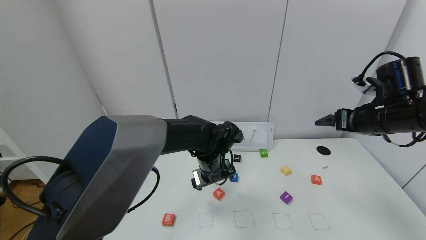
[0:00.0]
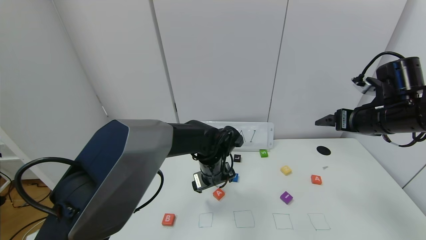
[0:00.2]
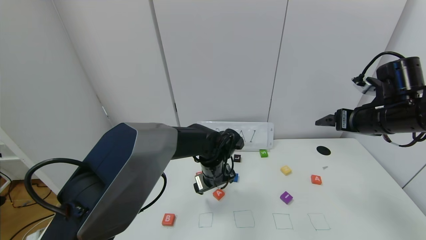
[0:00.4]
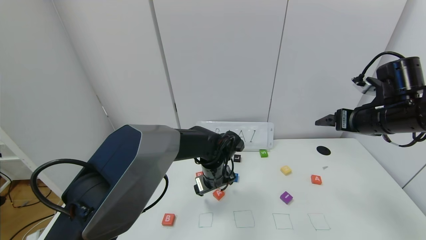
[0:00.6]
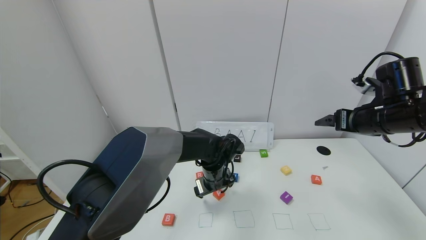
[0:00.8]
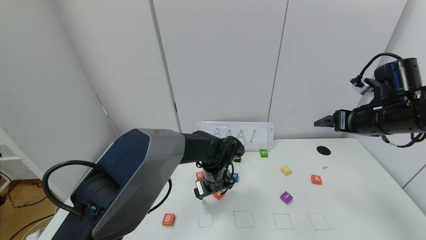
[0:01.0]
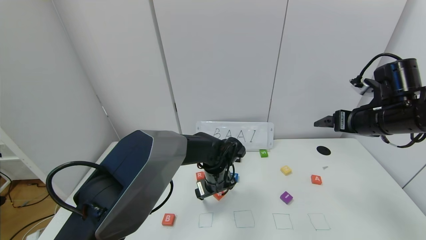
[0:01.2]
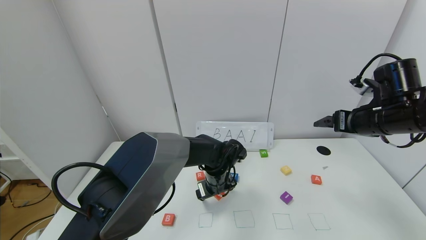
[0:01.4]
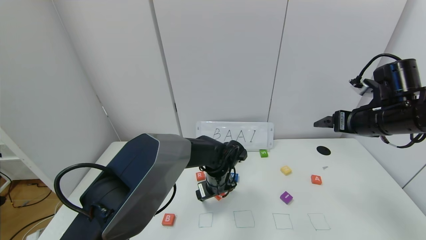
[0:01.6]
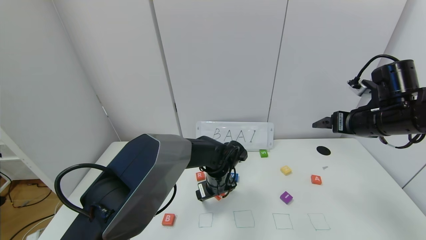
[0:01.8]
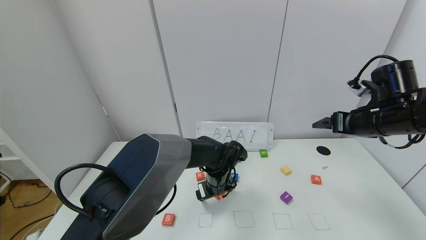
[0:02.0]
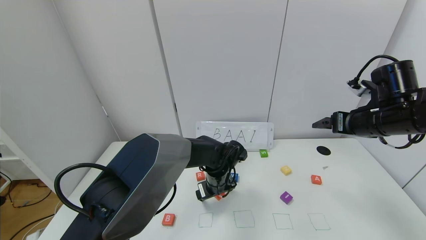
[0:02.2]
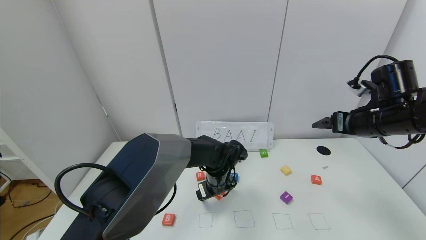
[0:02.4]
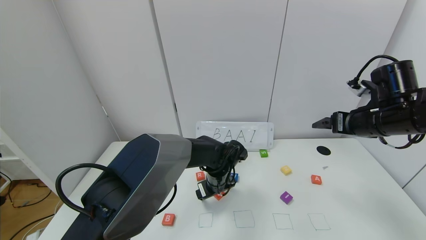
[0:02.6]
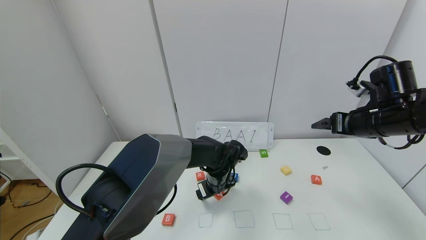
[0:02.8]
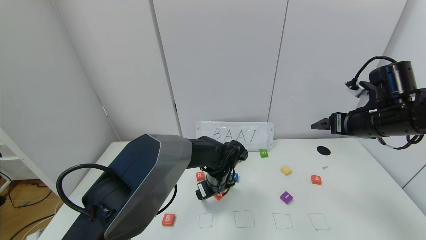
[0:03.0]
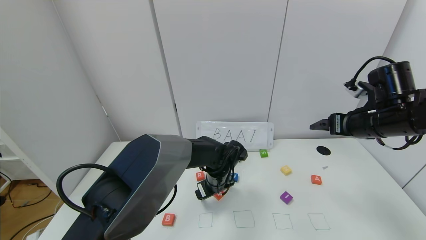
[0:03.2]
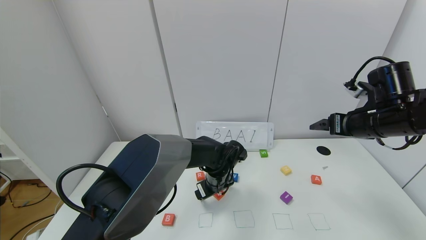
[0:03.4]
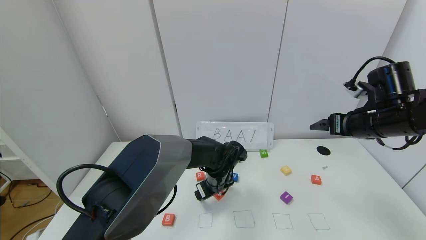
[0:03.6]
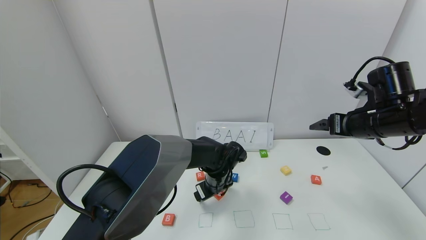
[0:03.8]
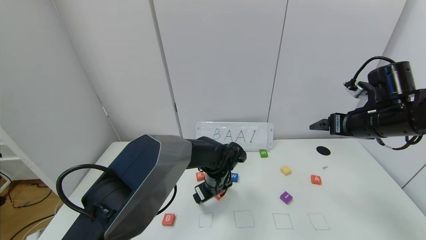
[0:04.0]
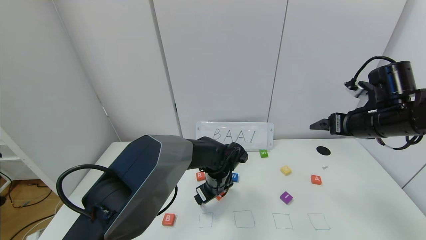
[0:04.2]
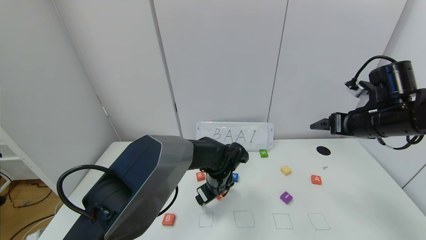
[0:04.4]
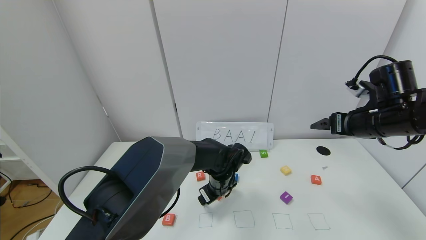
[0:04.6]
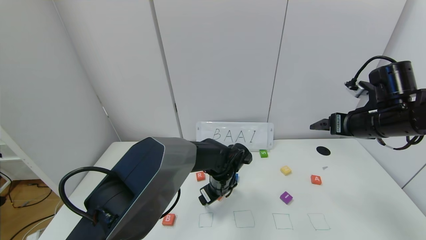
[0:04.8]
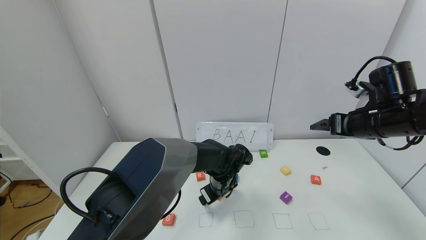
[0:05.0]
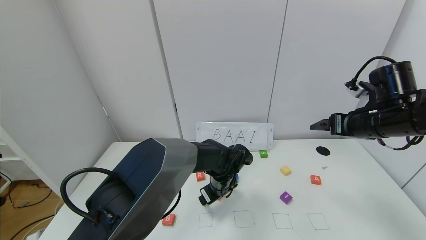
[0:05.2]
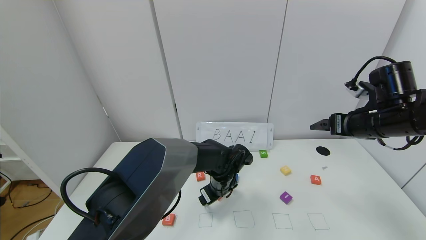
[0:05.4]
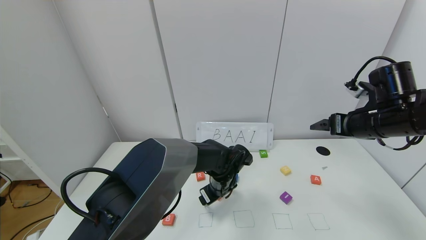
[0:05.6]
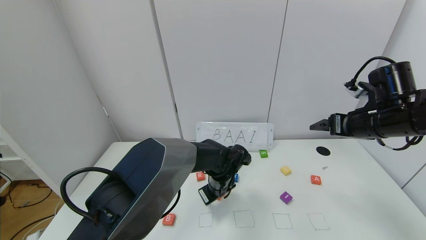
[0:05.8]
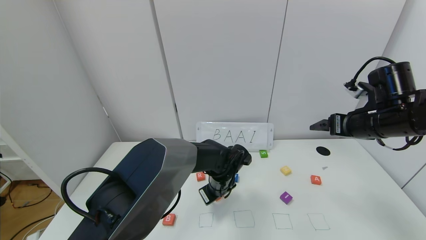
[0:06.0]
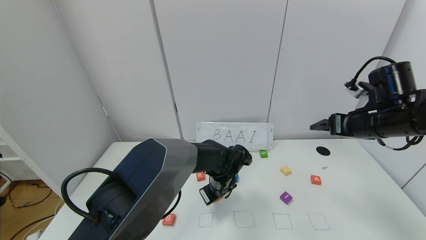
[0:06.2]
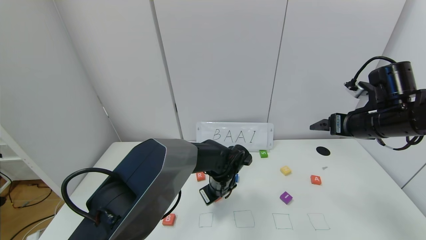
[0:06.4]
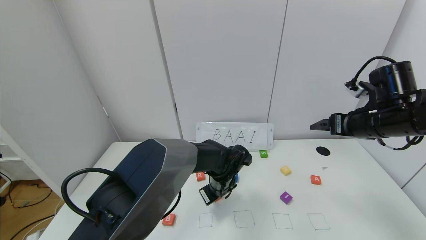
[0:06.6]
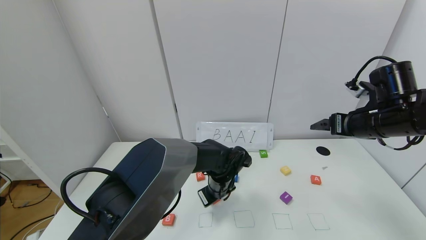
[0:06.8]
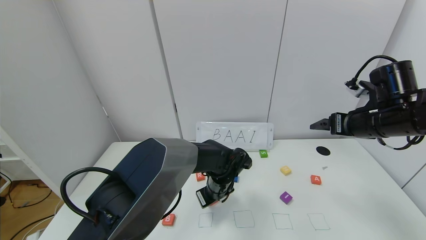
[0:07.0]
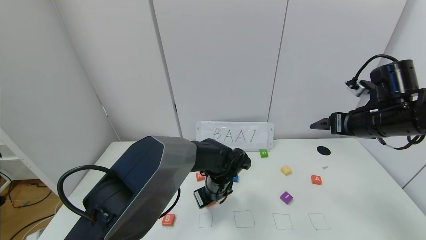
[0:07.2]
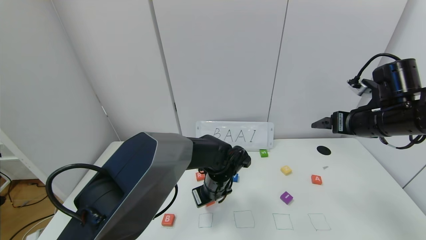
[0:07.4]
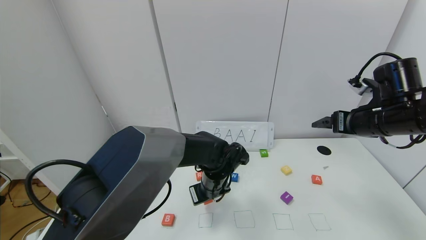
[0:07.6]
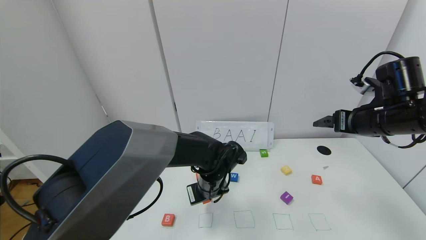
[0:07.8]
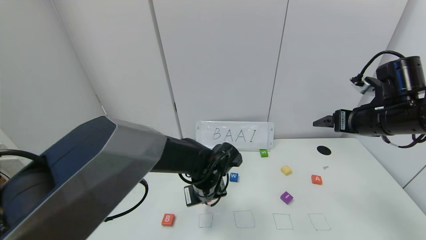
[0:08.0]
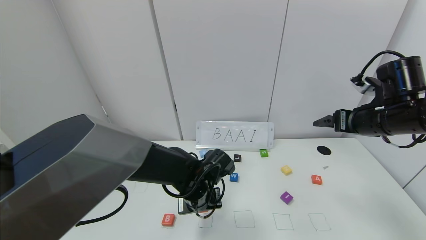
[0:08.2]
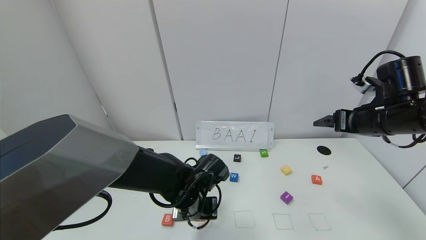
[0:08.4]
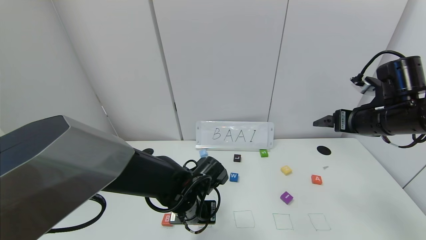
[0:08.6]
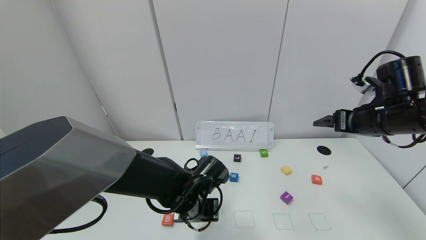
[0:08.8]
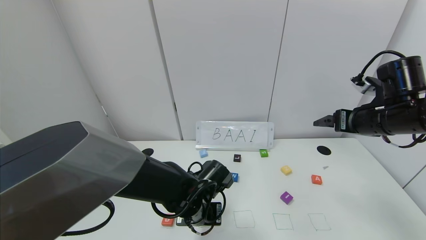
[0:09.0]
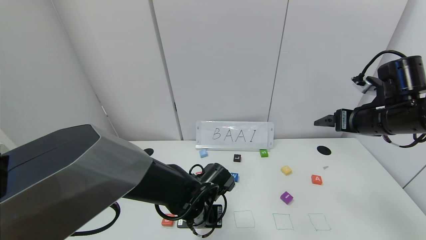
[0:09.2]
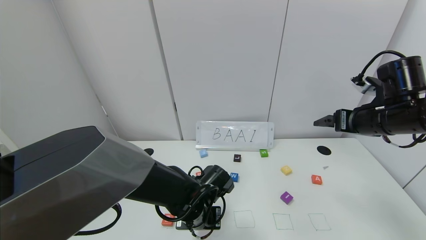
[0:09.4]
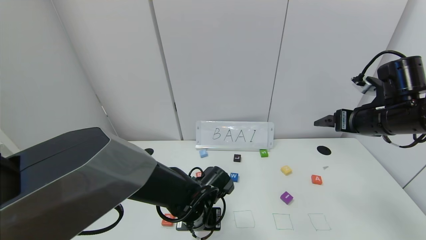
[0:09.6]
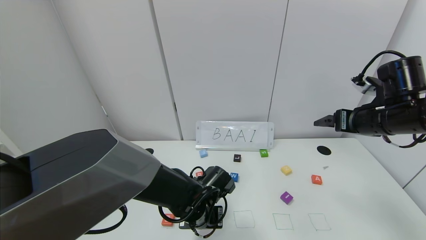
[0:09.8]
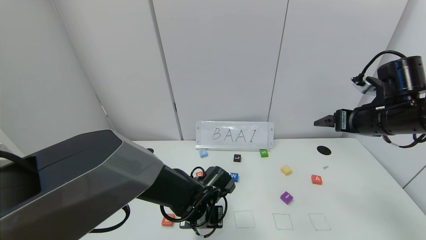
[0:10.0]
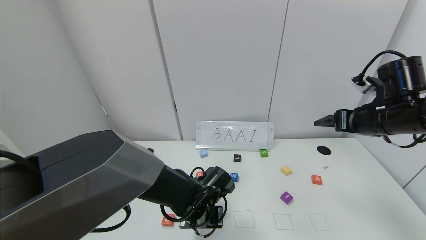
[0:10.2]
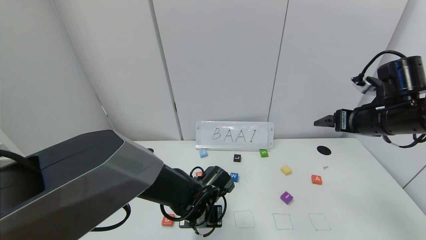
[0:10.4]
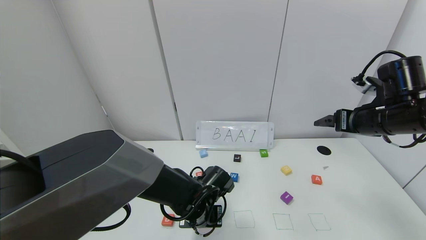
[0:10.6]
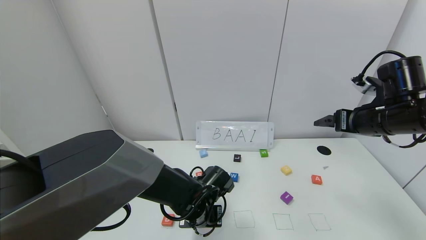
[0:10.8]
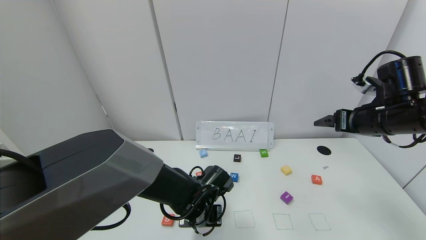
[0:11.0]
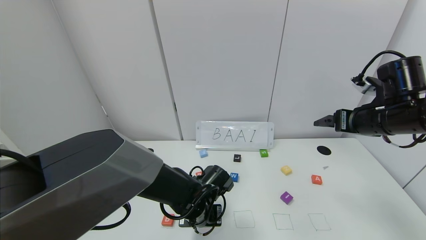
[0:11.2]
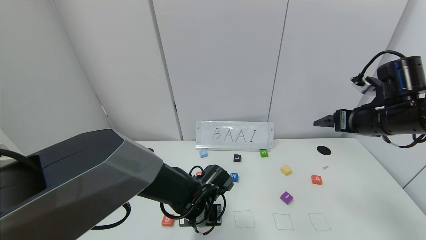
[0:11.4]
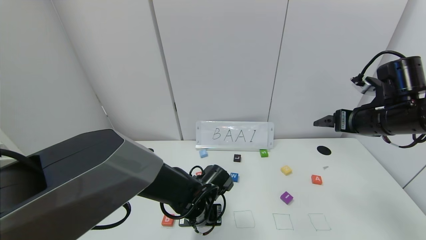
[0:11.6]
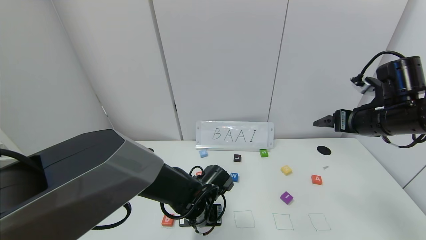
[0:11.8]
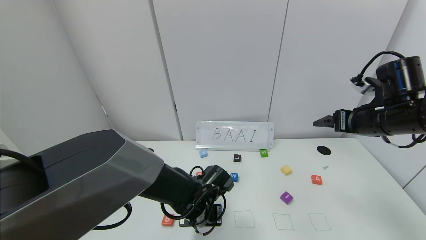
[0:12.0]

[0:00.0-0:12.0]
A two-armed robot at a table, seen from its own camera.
Task of the whole recording: use the gripper to find blocks with the letters b, a, a, and i on the table and arrange them into BAAI, then find r and N and turn the arranged baai into brian.
0:00.0 to 0:01.6: The left gripper moves downward, some 5 cm.
0:01.6 to 0:04.4: The grippers make only small movements.
0:04.4 to 0:06.0: The left gripper closes its fingers.
0:06.0 to 0:07.6: The left gripper changes place by approximately 5 cm.
0:07.6 to 0:09.0: The left gripper goes approximately 5 cm backward.
0:09.0 to 0:10.4: The grippers make only small movements.
0:10.4 to 0:12.0: The two grippers keep their place.

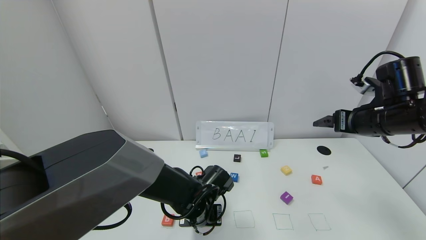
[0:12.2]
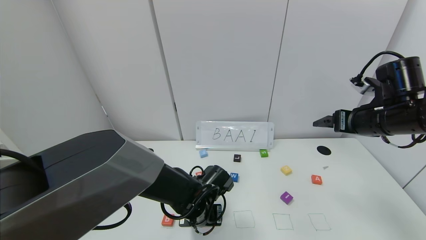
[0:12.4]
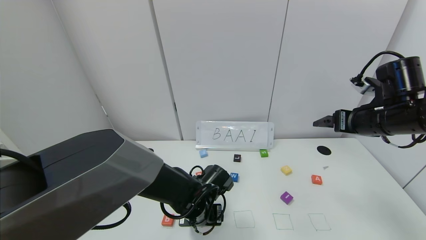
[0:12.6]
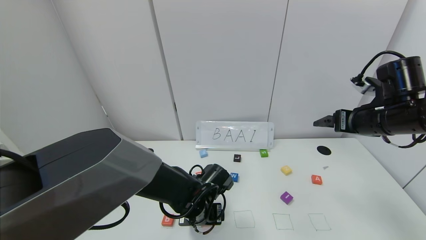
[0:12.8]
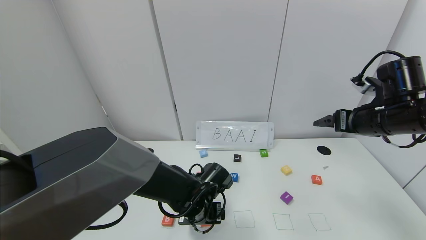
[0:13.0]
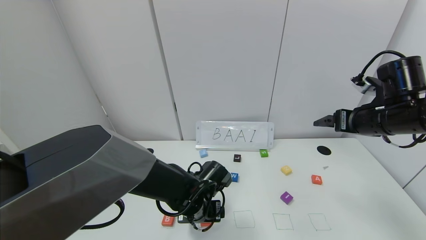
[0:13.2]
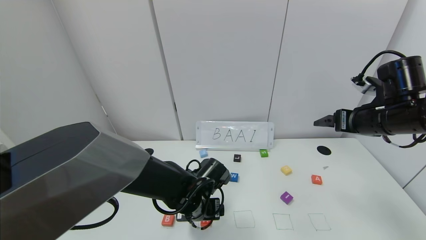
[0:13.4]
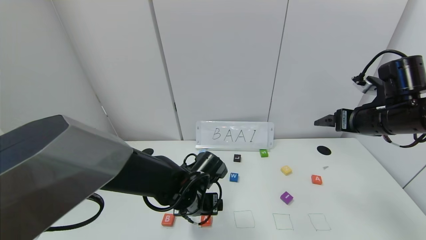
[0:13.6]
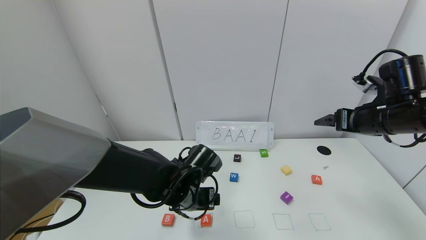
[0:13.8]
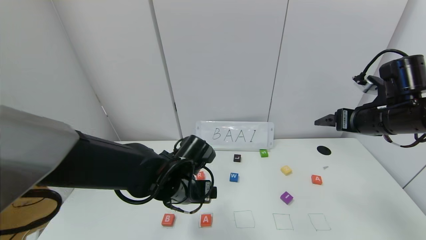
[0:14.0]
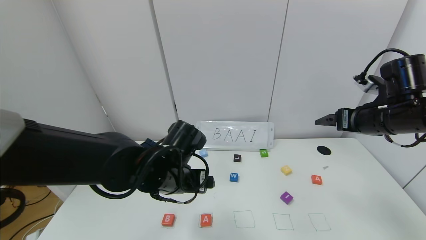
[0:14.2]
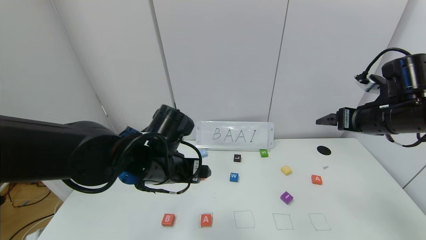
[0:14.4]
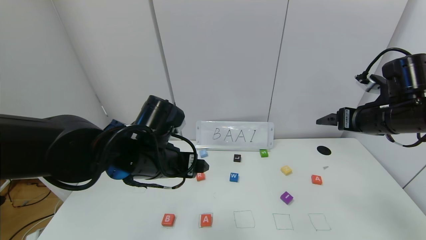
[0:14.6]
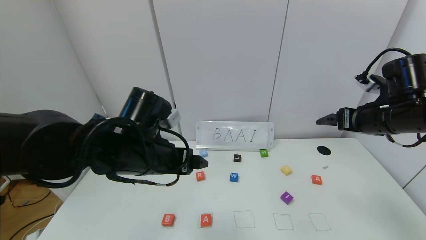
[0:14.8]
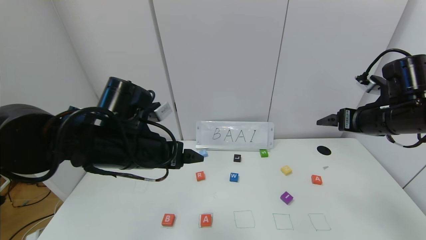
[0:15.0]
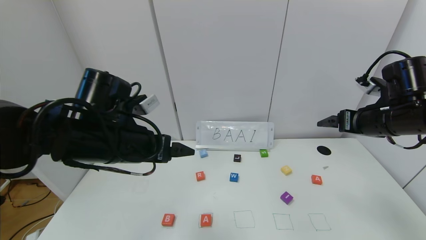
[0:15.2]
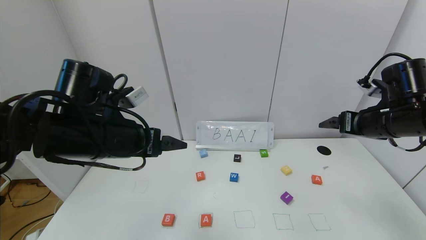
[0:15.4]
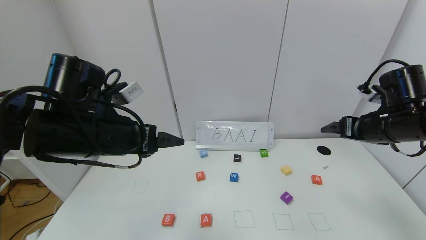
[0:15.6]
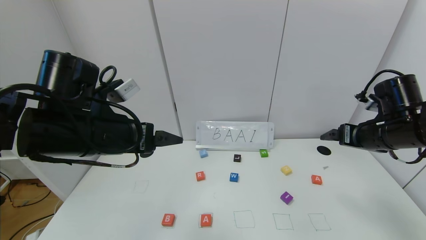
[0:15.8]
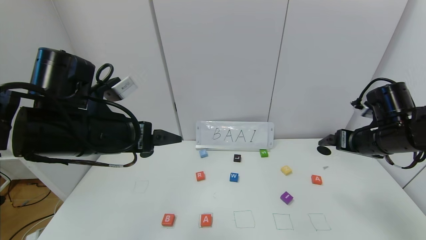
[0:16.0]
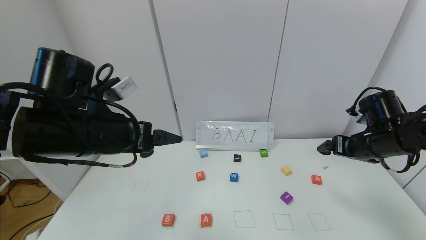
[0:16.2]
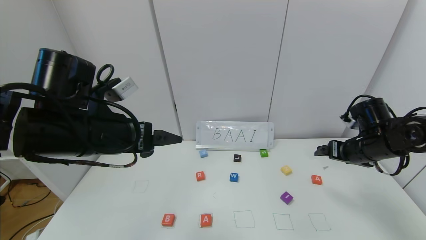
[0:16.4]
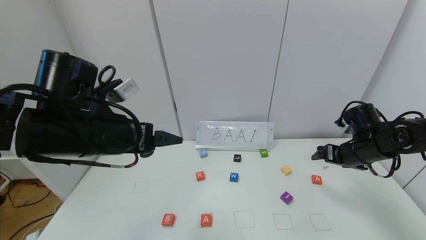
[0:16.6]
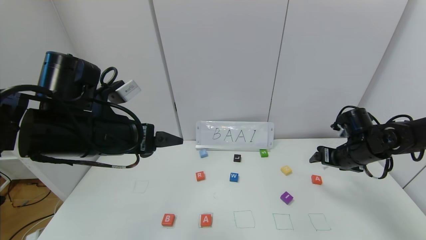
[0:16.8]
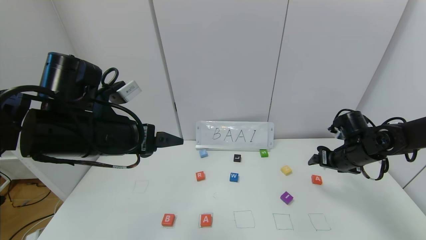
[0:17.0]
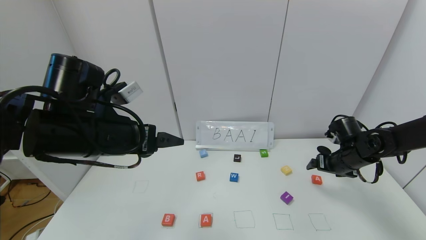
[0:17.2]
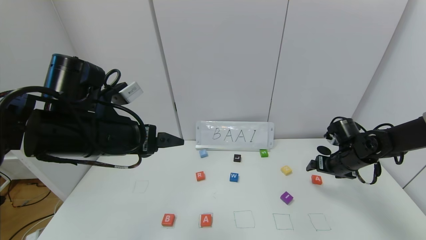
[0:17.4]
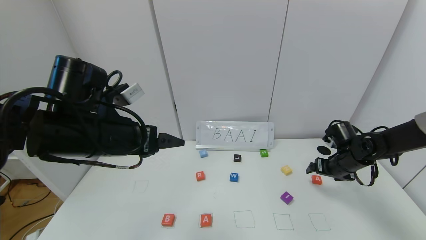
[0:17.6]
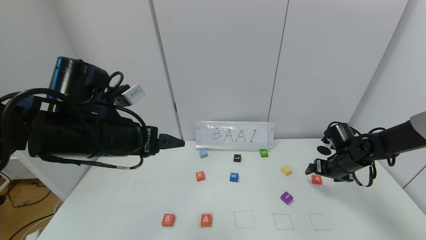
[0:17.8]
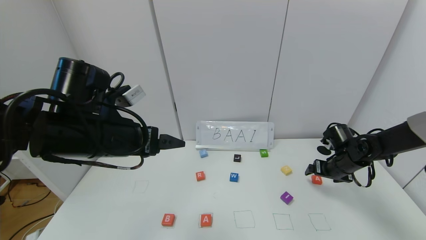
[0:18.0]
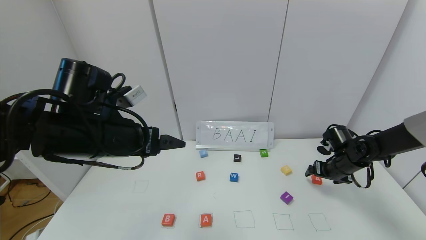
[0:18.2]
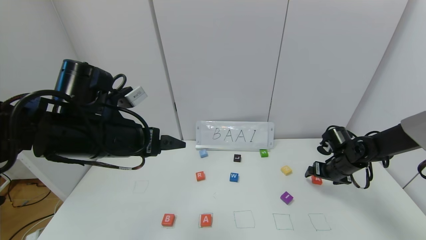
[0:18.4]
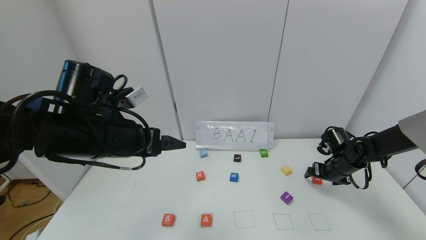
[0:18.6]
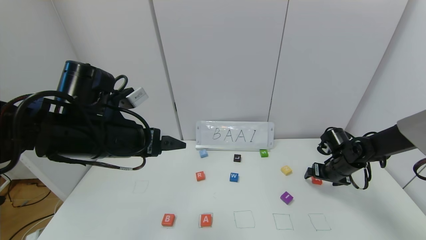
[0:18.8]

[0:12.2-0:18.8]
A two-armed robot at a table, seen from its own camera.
Task of the whole recording: use the gripper to find blocks with the letters b, a, a, and i on the table and arrange them into BAAI, then find r and N and turn the arranged baai into brian.
0:12.2 to 0:13.8: The left gripper is displaced upward by roughly 5 cm, and opens.
0:13.8 to 0:15.4: The left gripper shifts about 20 cm upward and to the left.
0:15.4 to 0:17.2: The right gripper heads downward and forward, covering roughly 15 cm.
0:17.2 to 0:18.8: The right gripper moves roughly 5 cm.
